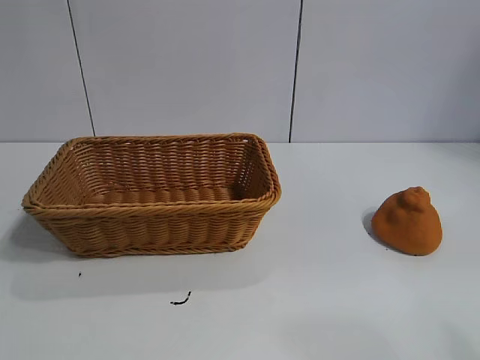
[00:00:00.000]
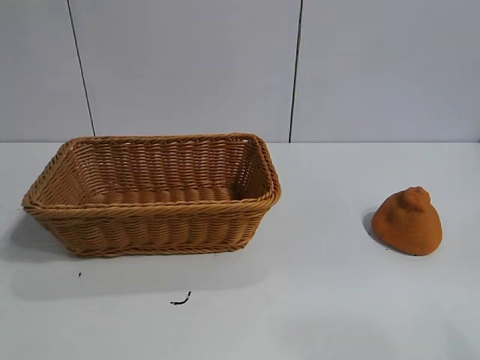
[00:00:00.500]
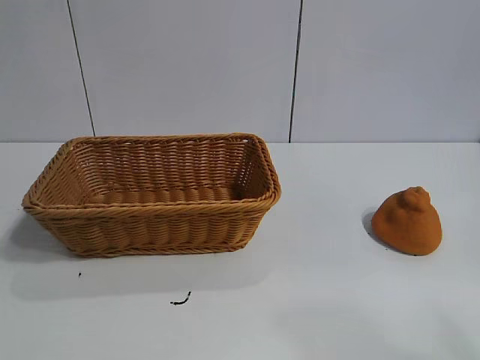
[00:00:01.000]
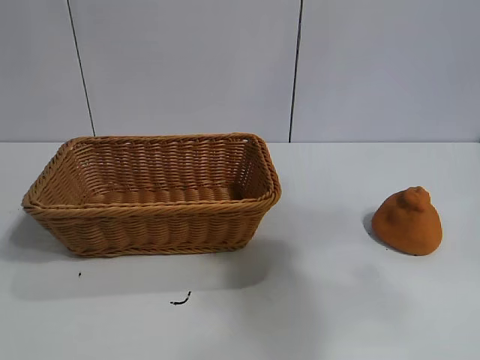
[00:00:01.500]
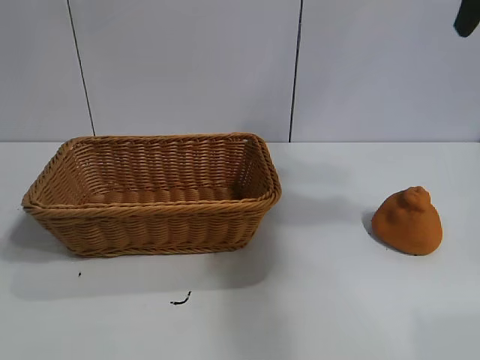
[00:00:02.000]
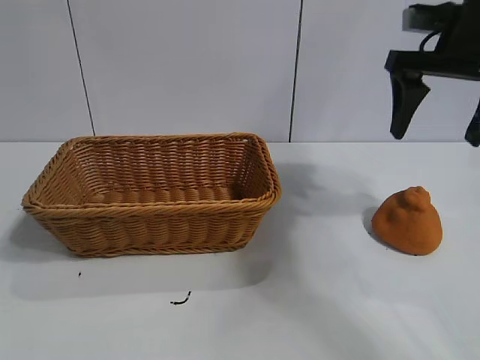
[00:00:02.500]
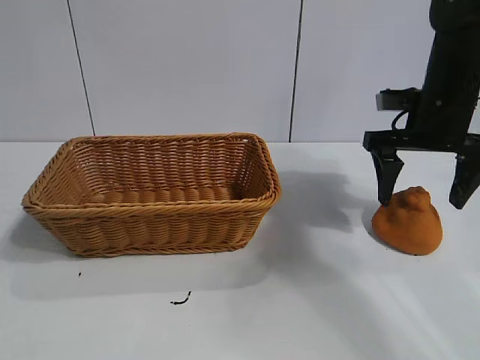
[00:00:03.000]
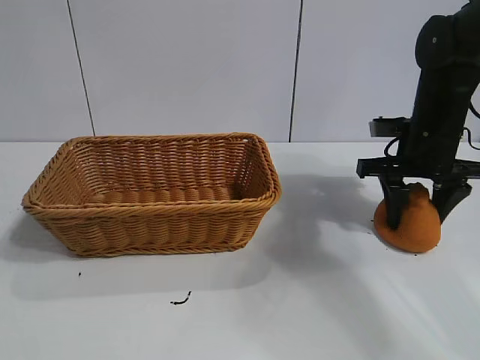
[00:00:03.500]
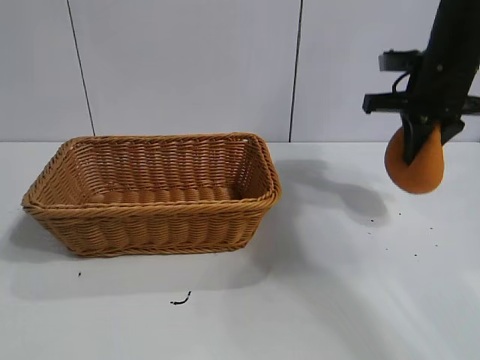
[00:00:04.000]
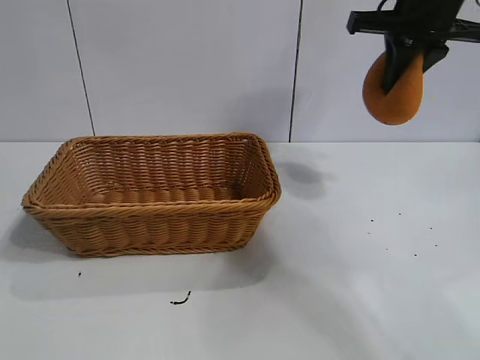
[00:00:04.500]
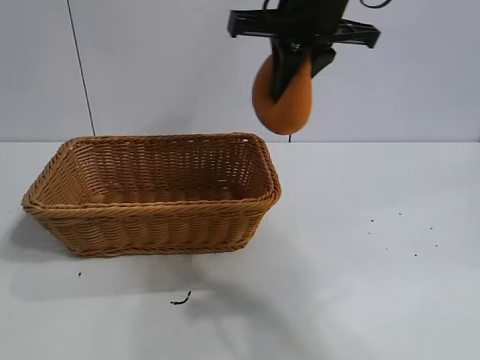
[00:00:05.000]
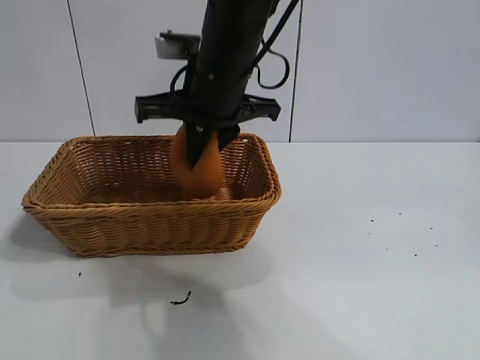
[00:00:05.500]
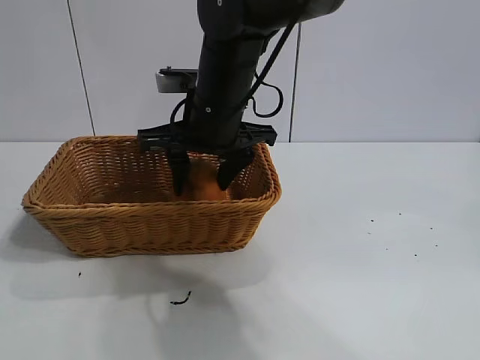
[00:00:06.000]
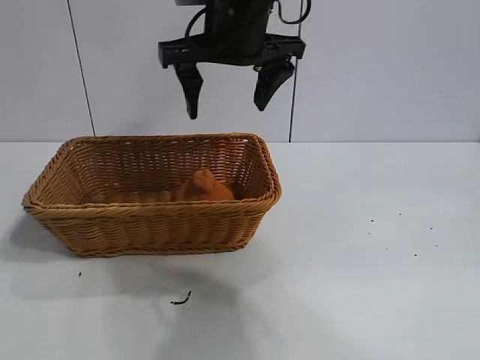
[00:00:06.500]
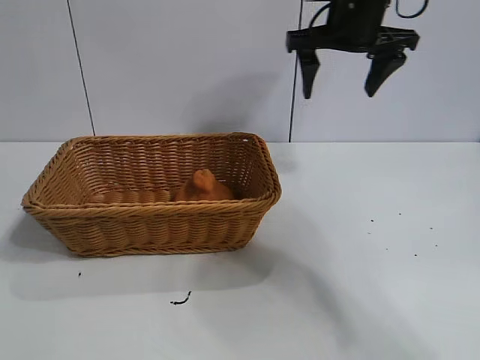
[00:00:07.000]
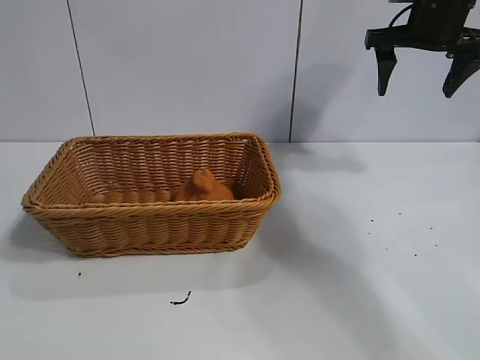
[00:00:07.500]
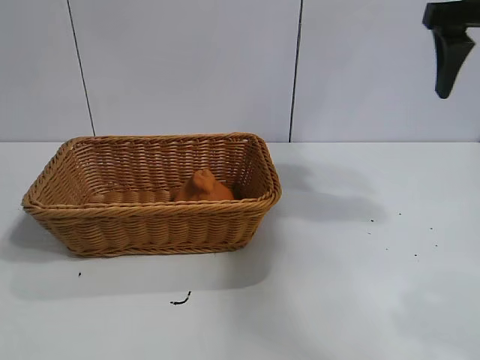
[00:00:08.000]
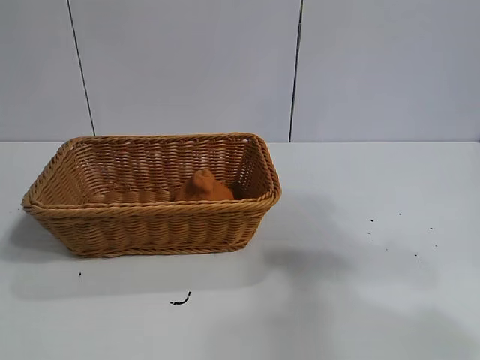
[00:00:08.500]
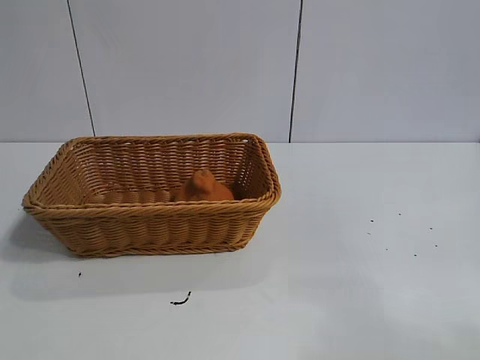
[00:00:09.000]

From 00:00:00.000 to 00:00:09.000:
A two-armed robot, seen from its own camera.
Task of the whole recording: pick up the orange and put it into the basket.
Step, from 00:00:01.000 to 00:00:03.500: Grasp the orange with right gripper.
Step, from 00:00:04.000 to 00:00:06.000: Place the orange in the basket with right gripper.
